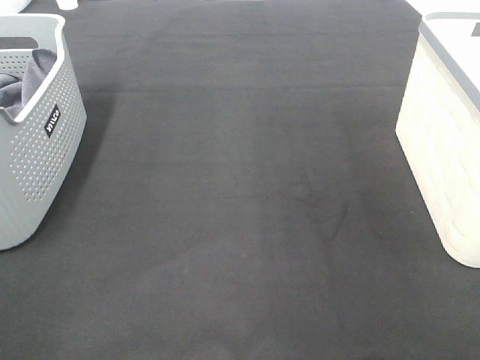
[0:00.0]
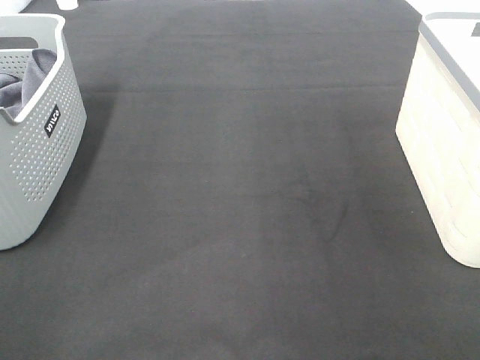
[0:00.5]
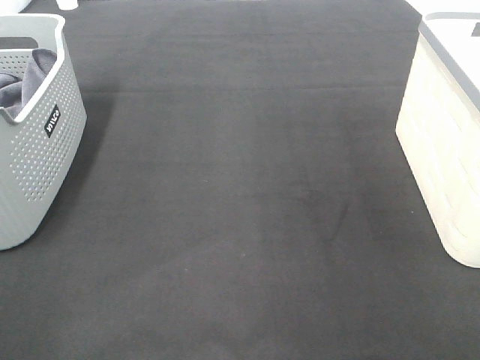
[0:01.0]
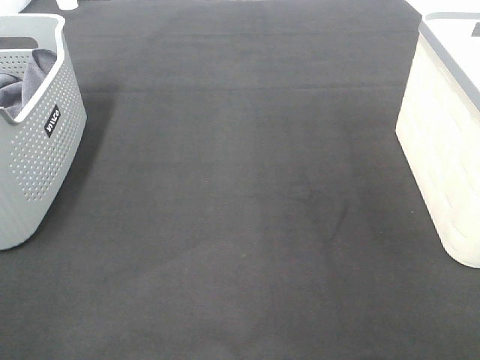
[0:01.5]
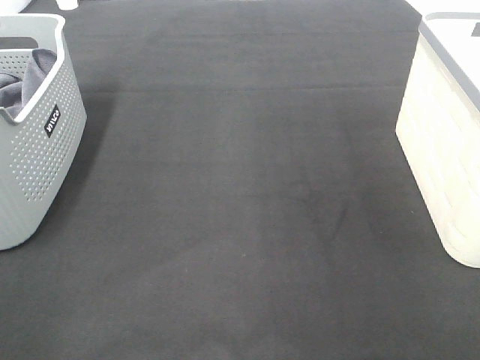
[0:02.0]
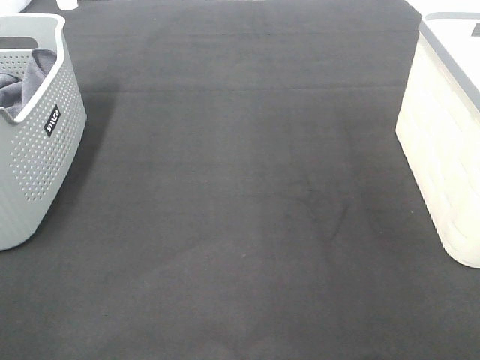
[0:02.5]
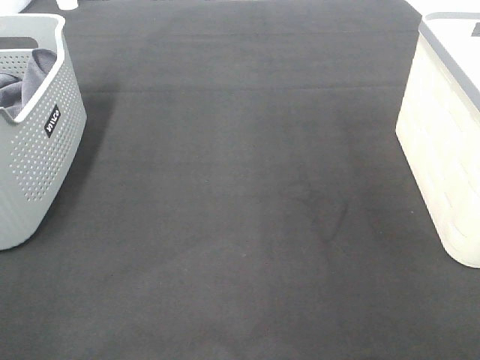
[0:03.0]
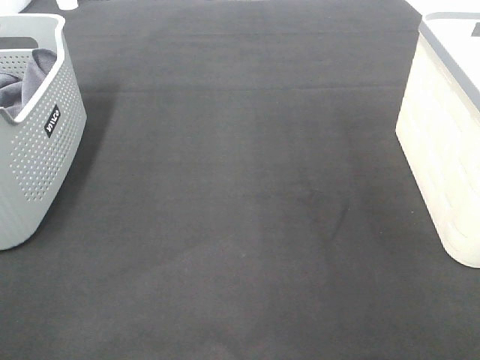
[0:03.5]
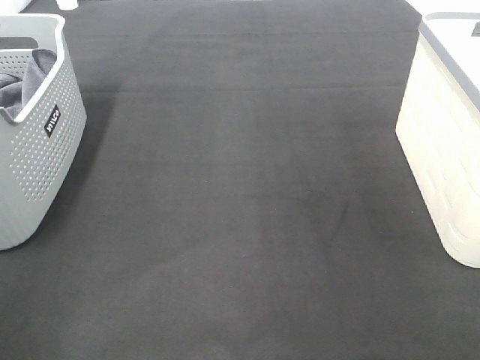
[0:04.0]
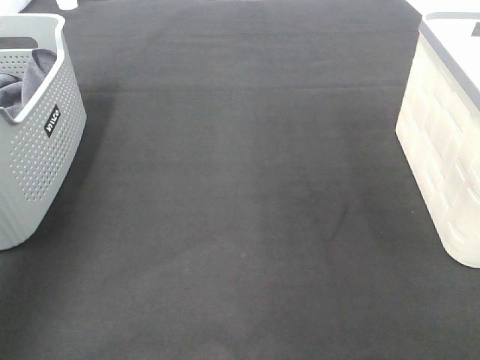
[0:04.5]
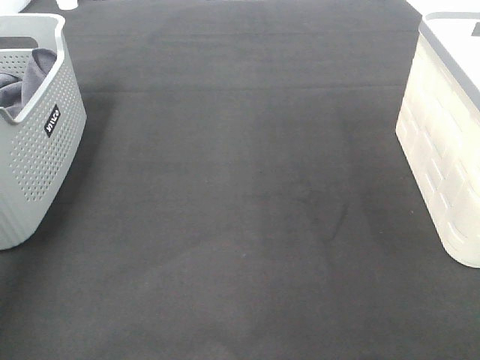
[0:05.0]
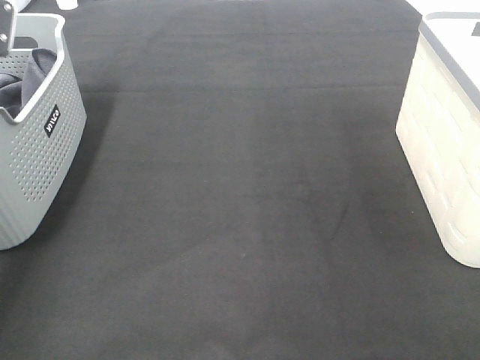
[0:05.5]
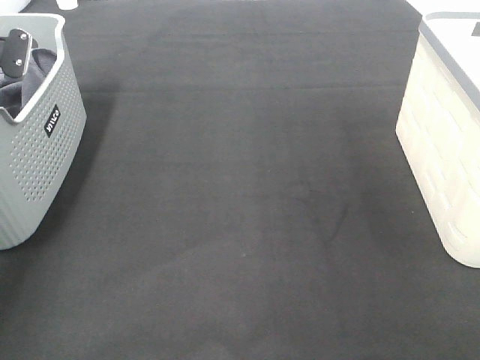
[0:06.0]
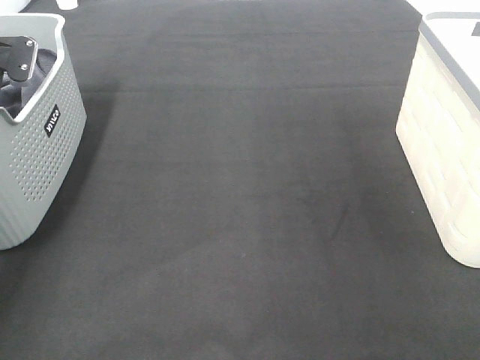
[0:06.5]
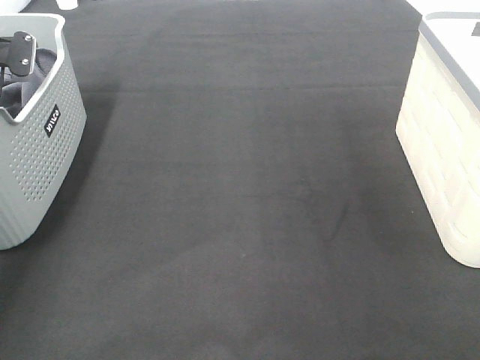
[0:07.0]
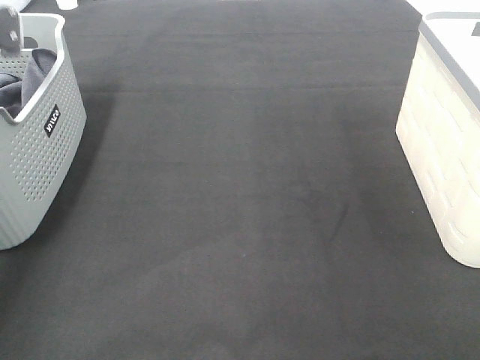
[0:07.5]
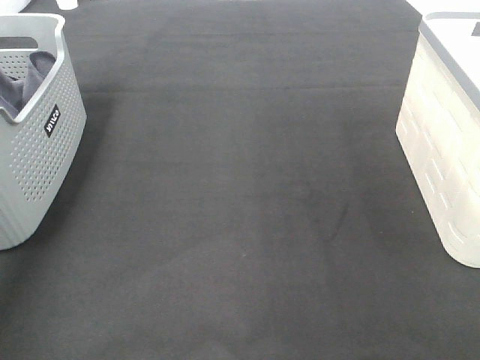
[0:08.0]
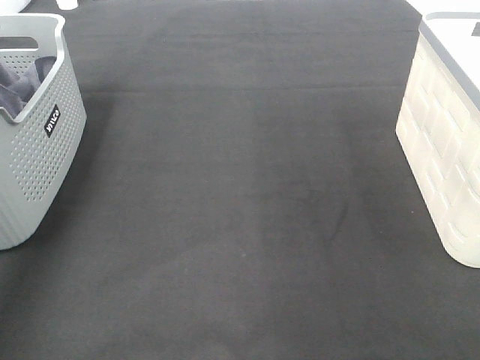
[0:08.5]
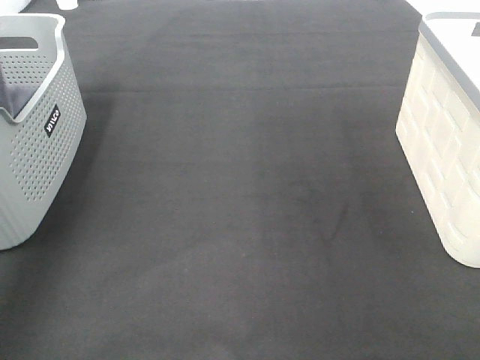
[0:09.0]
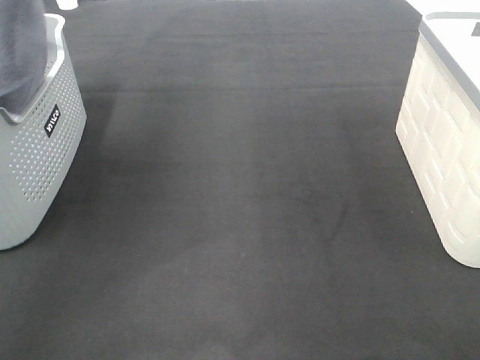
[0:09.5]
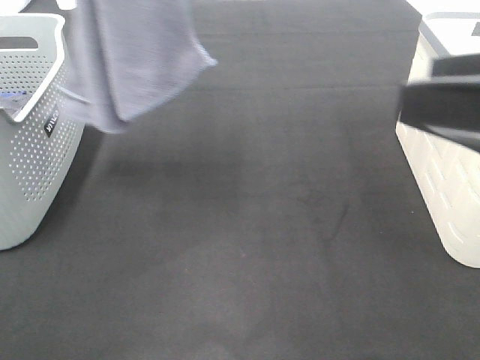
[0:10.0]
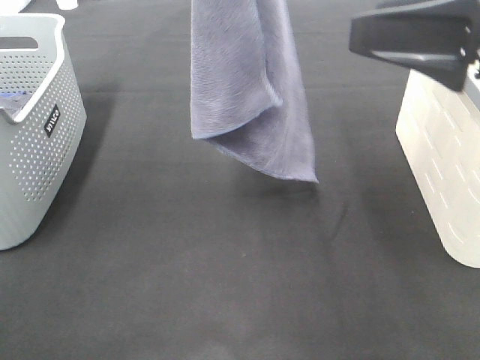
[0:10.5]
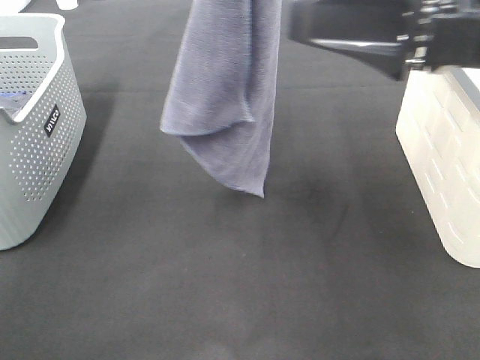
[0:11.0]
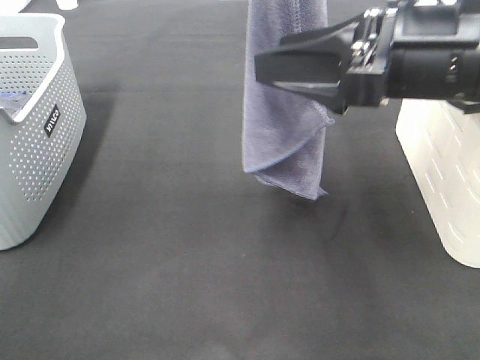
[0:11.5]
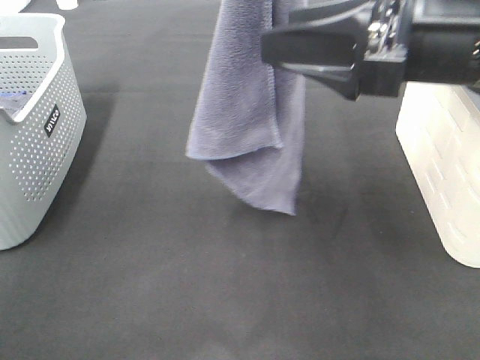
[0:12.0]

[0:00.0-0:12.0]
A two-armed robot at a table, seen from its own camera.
Task of the whole recording: Remove the towel and place it.
0:00.0 to 0:02.0: Both grippers stay put.
0:04.0 to 0:06.0: The left gripper is displaced forward and downward by about 40 cm.
0:06.0 to 0:08.0: The left gripper moves upward and backward, approximately 15 cm, and closes up.
0:08.0 to 0:10.0: The right gripper travels forward and to the left by approximately 15 cm. The left gripper moves to the right, upward and backward, approximately 30 cm.
0:10.0 to 0:12.0: The right gripper travels forward and to the left by roughly 10 cm. The left gripper heads to the right, covering about 10 cm.

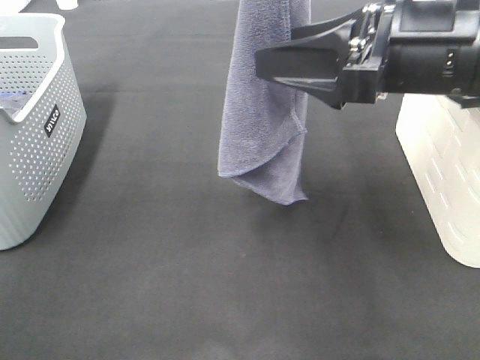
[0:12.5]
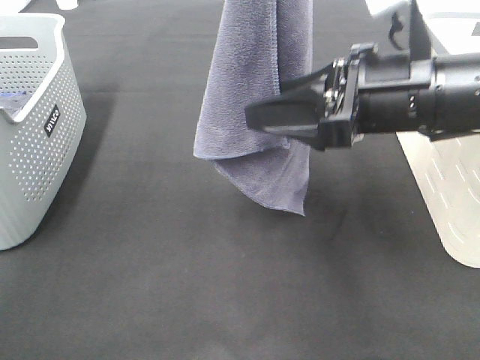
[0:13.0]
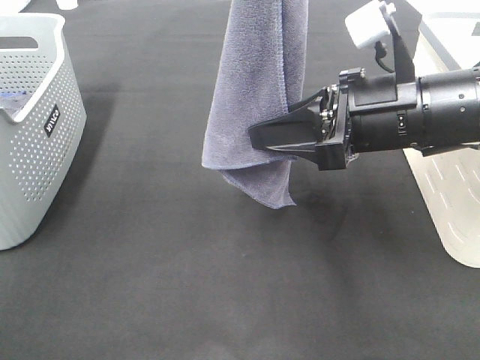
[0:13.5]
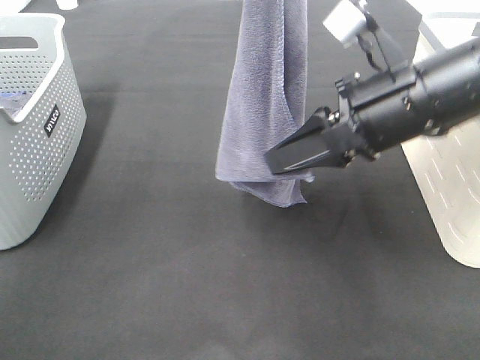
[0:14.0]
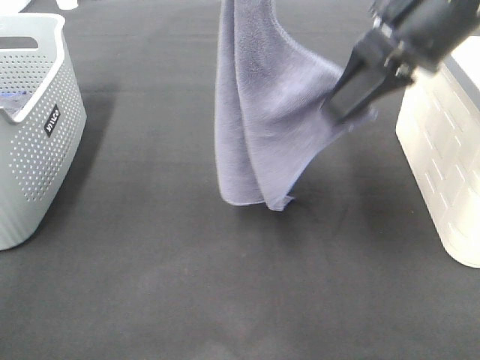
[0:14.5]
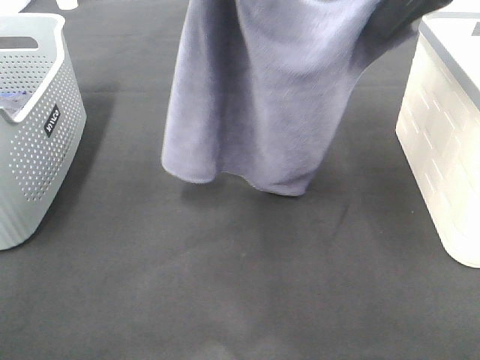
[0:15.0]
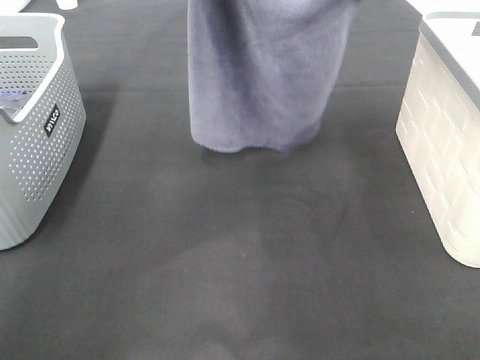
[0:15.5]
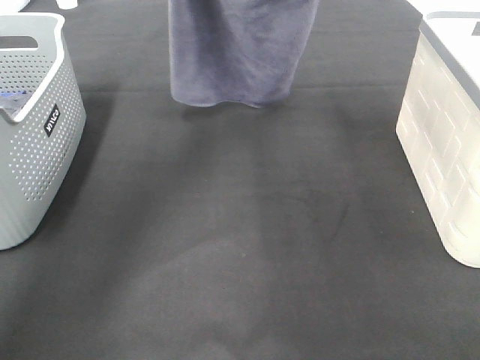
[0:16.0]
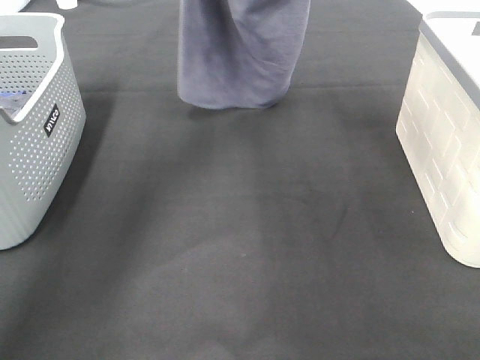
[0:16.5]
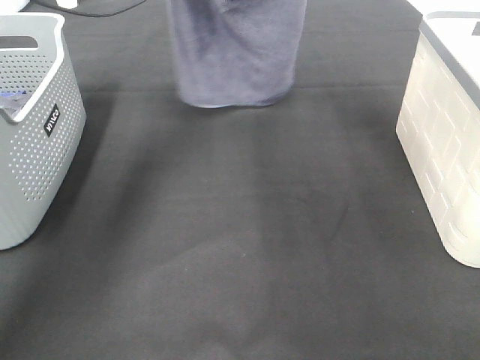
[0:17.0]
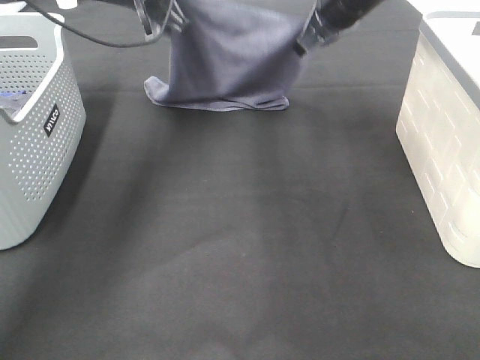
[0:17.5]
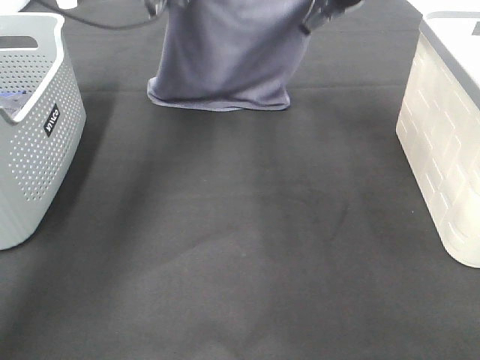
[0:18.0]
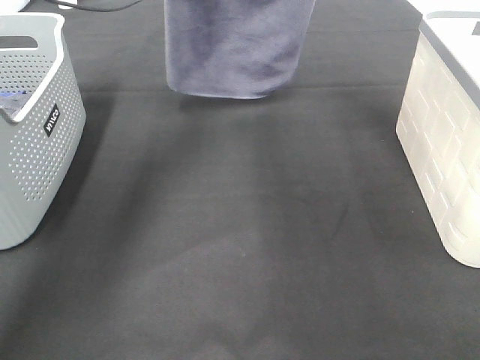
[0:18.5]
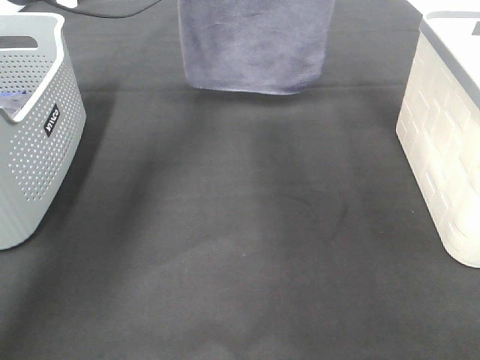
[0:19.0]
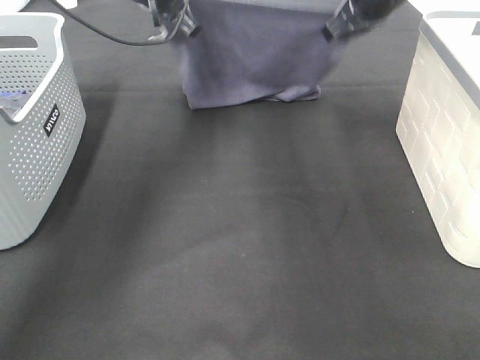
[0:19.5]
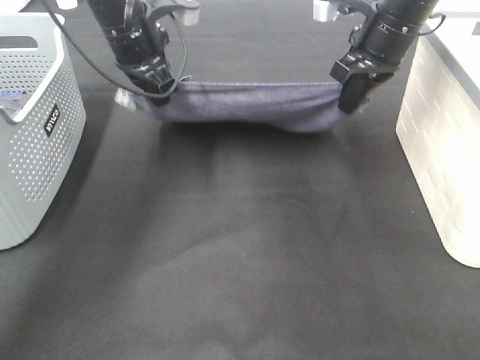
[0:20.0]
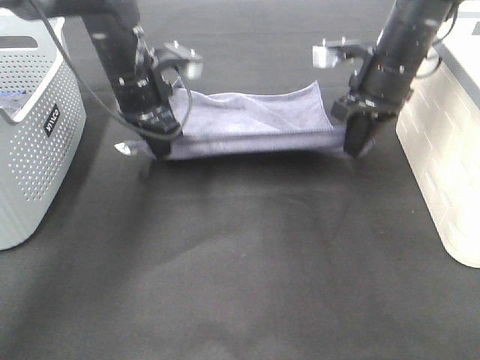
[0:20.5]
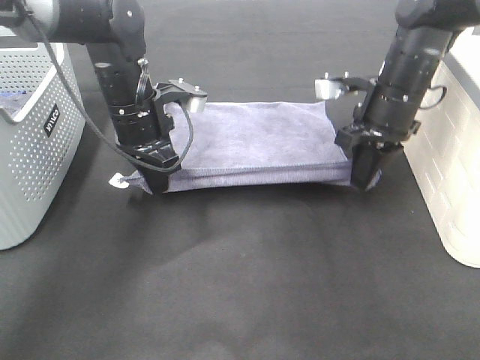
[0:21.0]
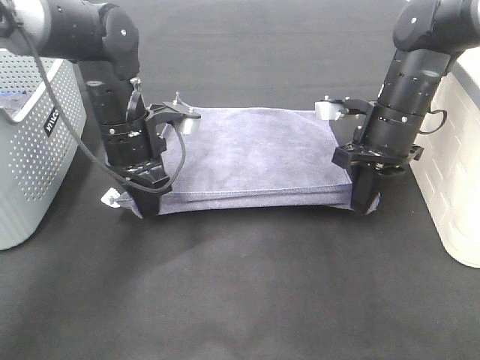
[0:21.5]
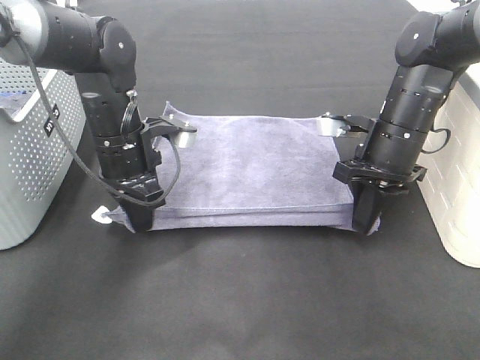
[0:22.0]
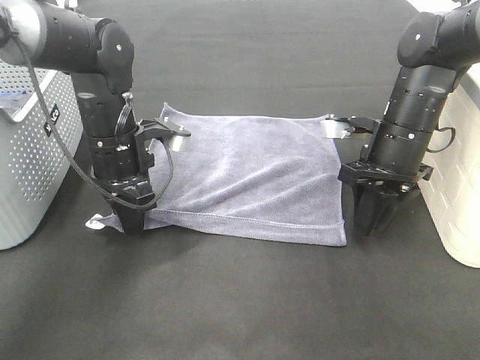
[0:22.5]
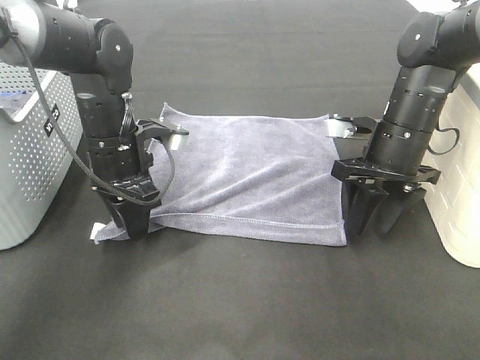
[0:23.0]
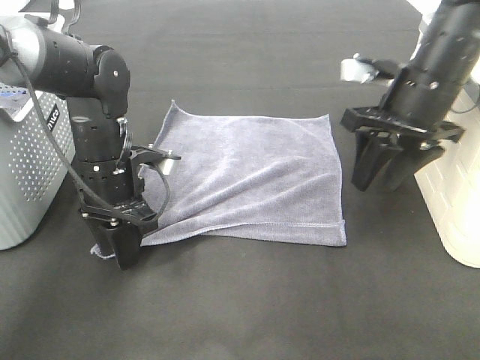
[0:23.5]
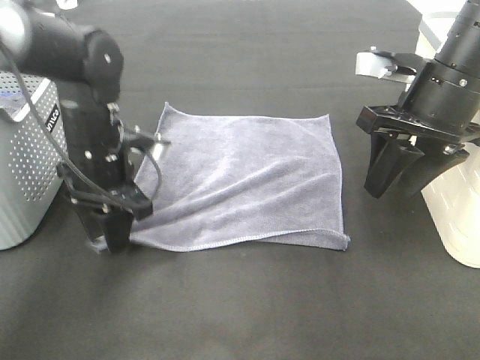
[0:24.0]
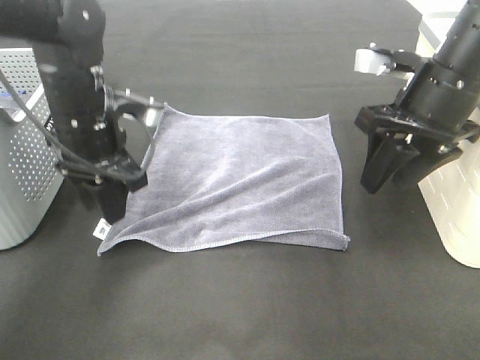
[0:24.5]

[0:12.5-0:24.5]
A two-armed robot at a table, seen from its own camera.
Task of the whole recording: Remove the towel and place it.
Step, 0:13.0 to 0:17.5: Right hand: spread the grey towel flat on the table.
Step, 0:13.0 to 0:19.0: Left hand: spread the grey towel flat on the table.
Step, 0:19.5 to 0:23.5: Right hand:adjust the gray towel.
0:12.5 to 0:14.5: The right gripper is displaced forward by roughly 5 cm, and closes up.
0:14.5 to 0:16.5: The right gripper shifts roughly 20 cm forward, while the left gripper shifts about 25 cm forward and downward.
0:18.5 to 0:20.5: The grippers both shift downward and backward by roughly 15 cm.
0:20.5 to 0:22.5: The right gripper heads backward and downward, covering roughly 10 cm, and opens. The left gripper is displaced backward by approximately 5 cm.
0:22.5 to 0:24.5: The right gripper travels upward by roughly 10 cm; the left gripper is displaced upward by approximately 5 cm.

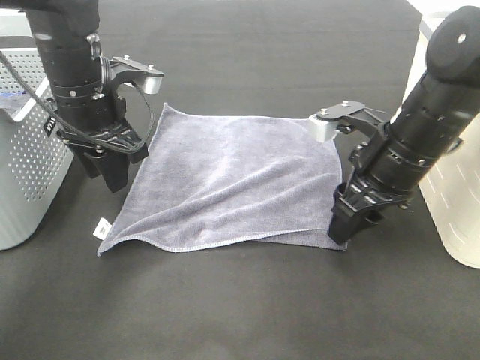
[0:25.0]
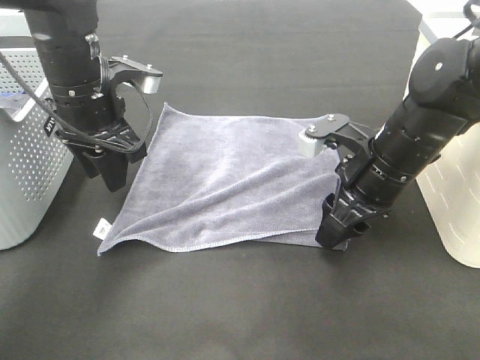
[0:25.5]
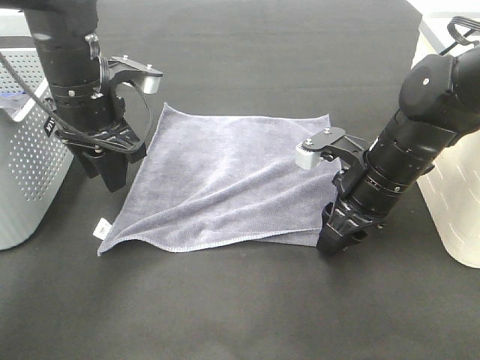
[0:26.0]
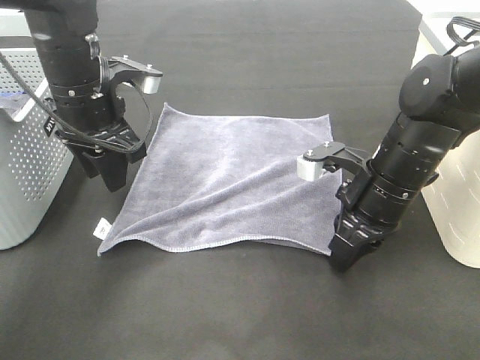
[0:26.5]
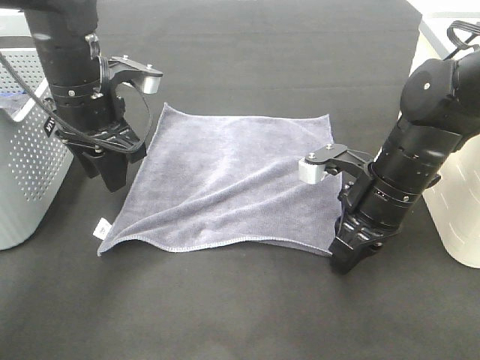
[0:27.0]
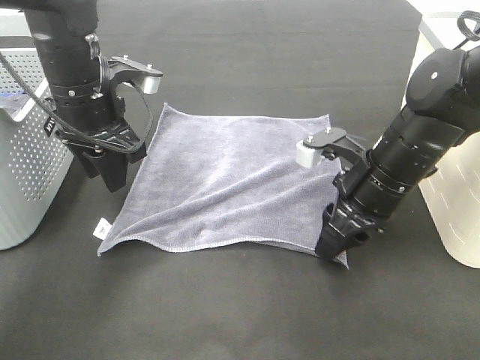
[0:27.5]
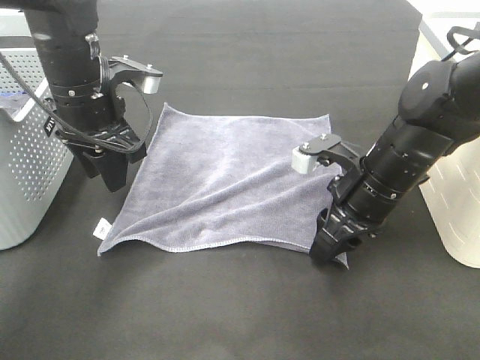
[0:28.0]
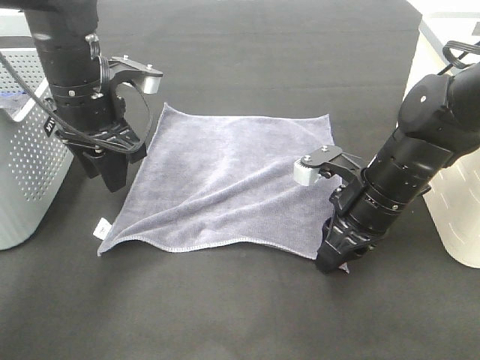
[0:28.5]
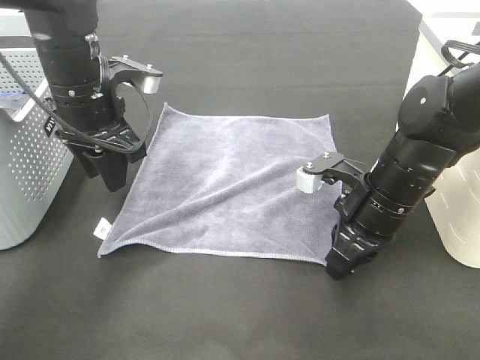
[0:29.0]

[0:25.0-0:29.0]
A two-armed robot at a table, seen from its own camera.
Task of the whole recording: Remove the towel and place it.
0:25.0 to 0:27.0: The right gripper closes up.
0:27.0 to 0:29.0: The grippers stay close to where they were, moving slightly.
